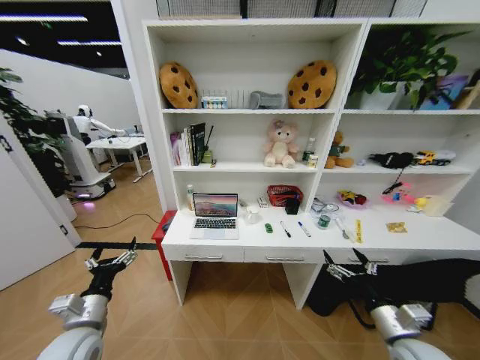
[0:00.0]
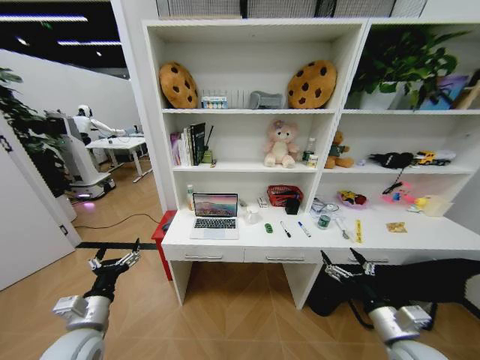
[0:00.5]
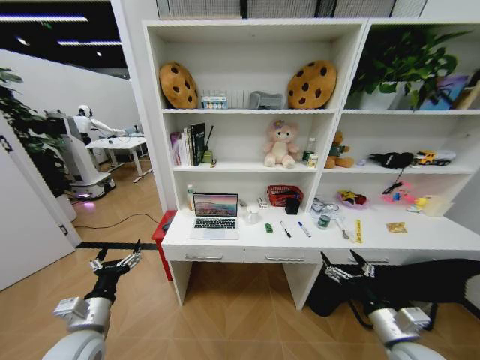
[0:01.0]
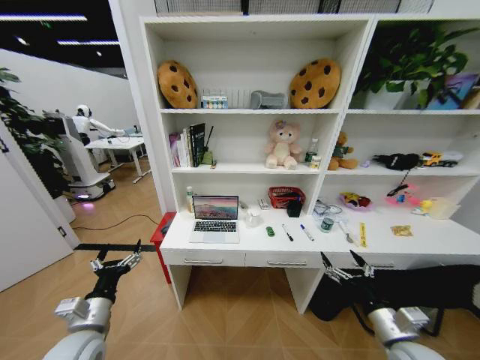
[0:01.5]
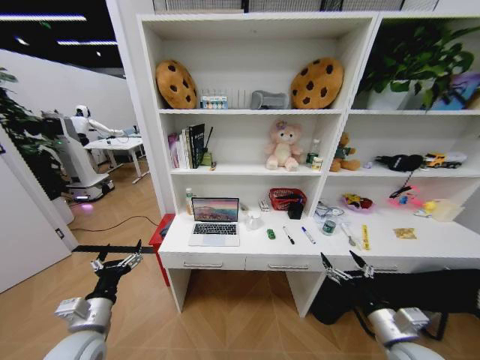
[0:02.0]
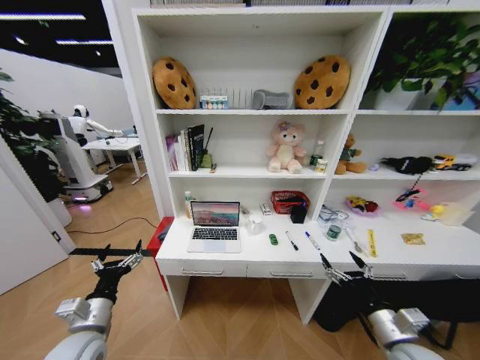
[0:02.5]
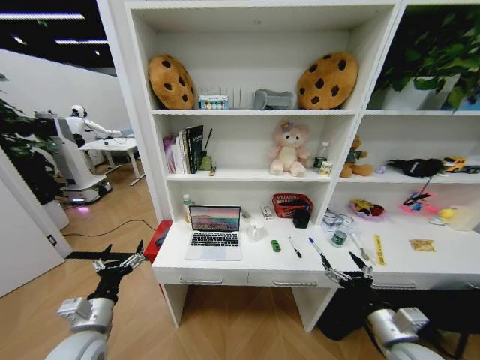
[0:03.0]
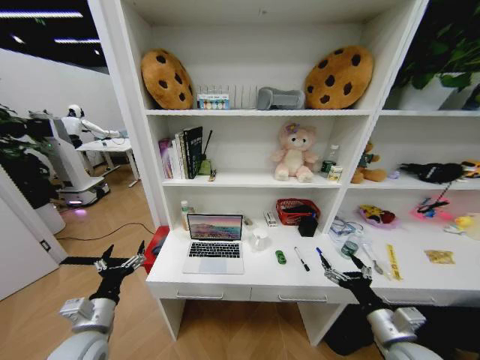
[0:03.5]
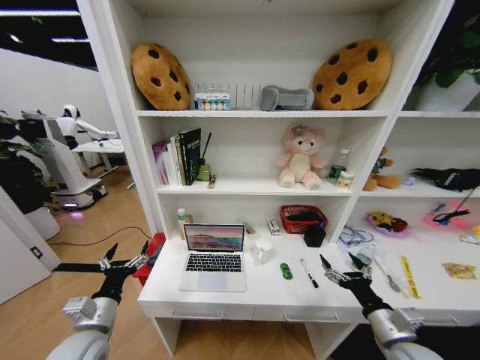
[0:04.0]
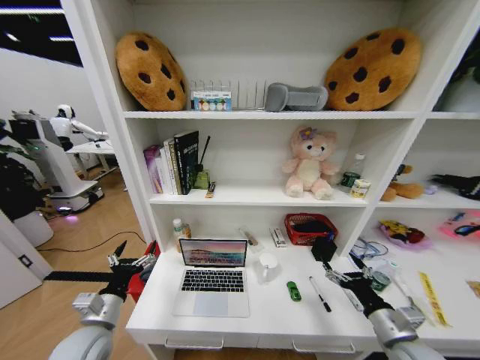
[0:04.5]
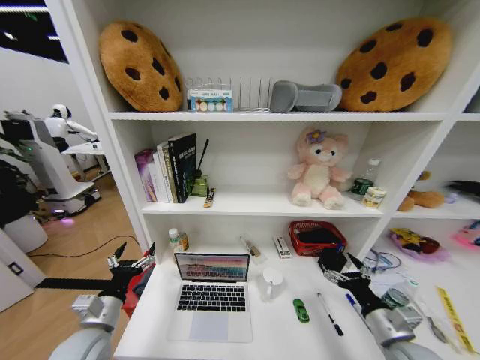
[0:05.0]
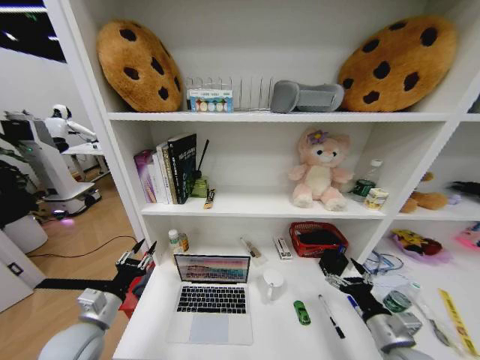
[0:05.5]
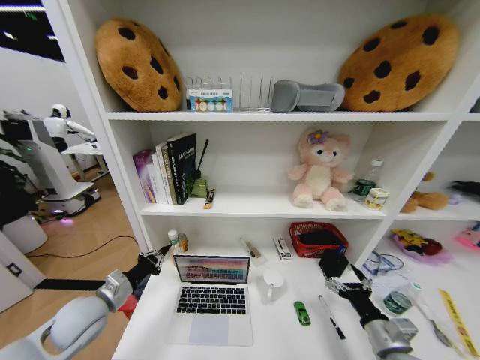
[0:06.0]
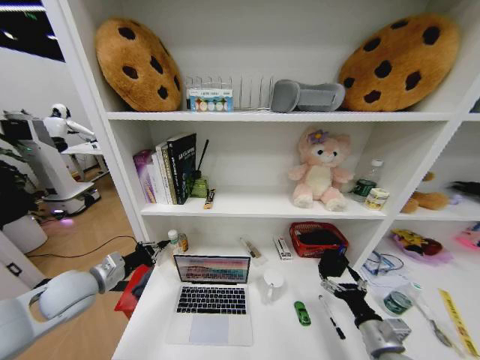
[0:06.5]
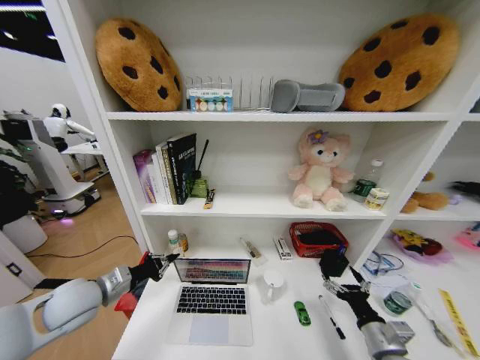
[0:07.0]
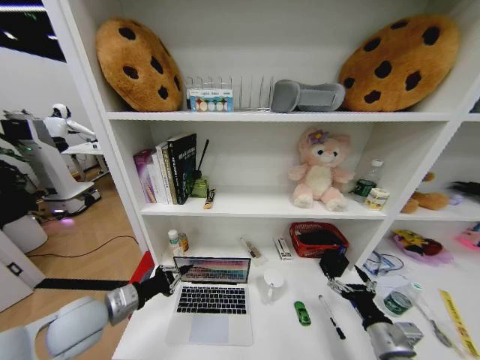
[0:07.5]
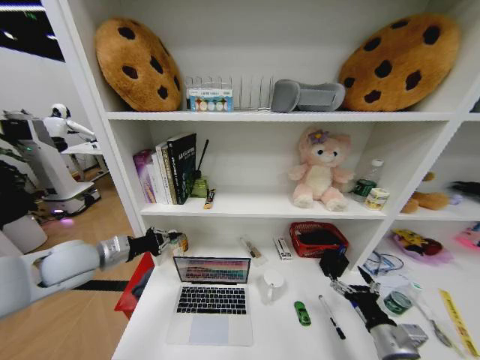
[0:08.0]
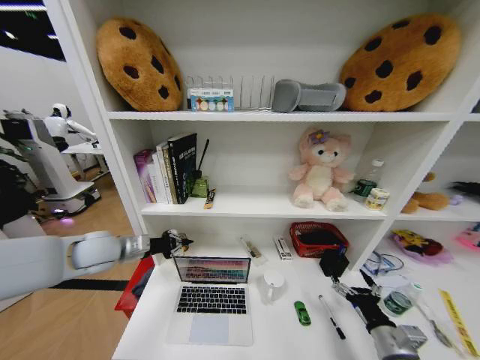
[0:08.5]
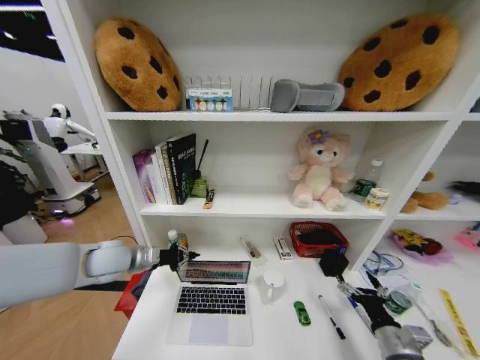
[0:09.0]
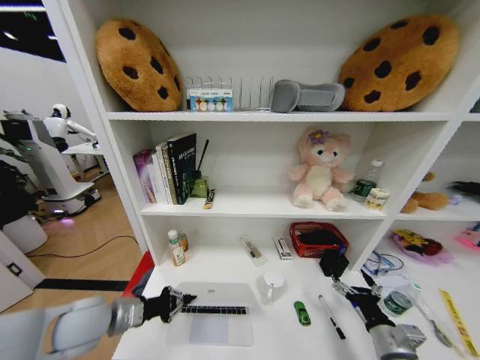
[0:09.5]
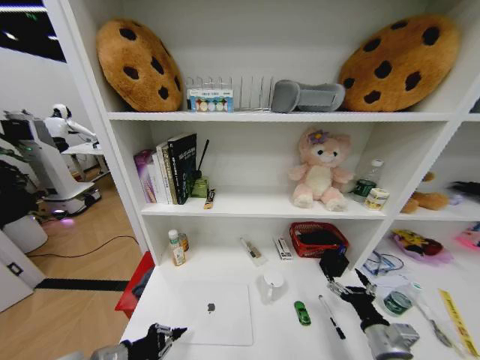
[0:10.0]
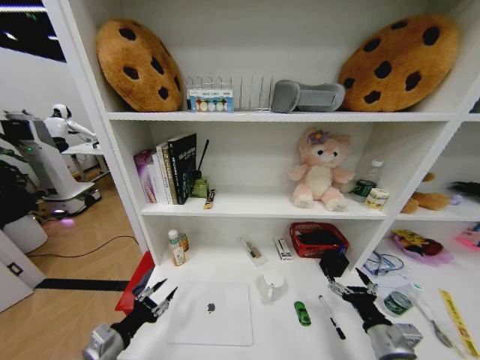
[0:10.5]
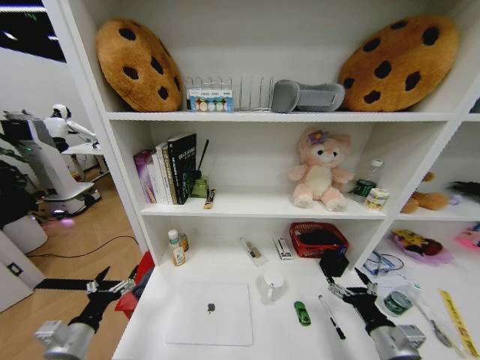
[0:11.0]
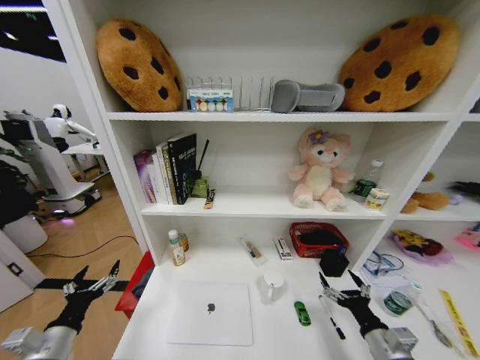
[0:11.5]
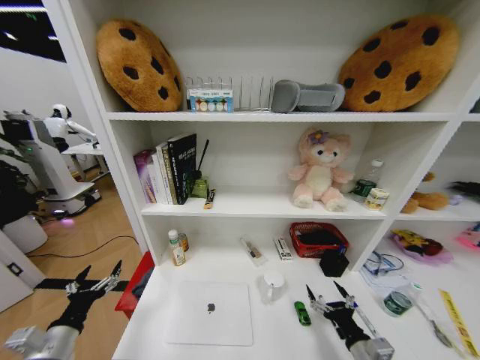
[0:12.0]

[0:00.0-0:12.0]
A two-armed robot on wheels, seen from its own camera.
Task of the whole recording: Organize the objects on the table.
0:04.0 to 0:06.0: The left gripper shifts roughly 5 cm forward, and closes its fingers.
0:06.0 to 0:08.0: The left gripper travels upward and forward by about 15 cm.
0:08.0 to 0:10.0: The left gripper is displaced backward and downward by about 25 cm.
0:10.0 to 0:12.0: The right gripper shifts by about 5 cm, while the left gripper is displaced to the left by approximately 5 cm, and opens its fingers.

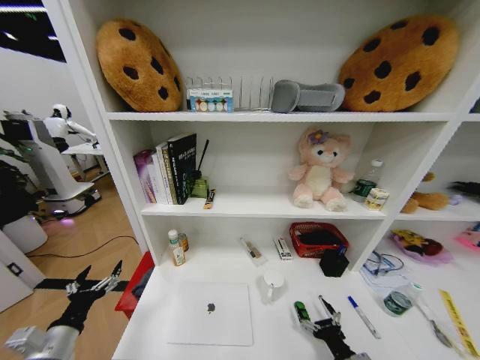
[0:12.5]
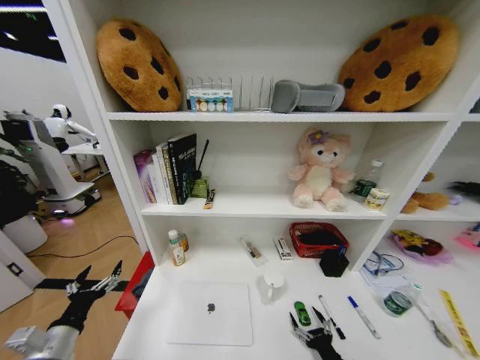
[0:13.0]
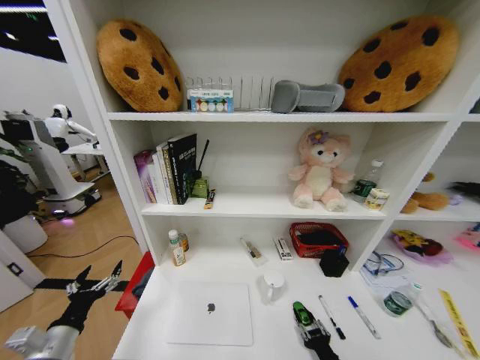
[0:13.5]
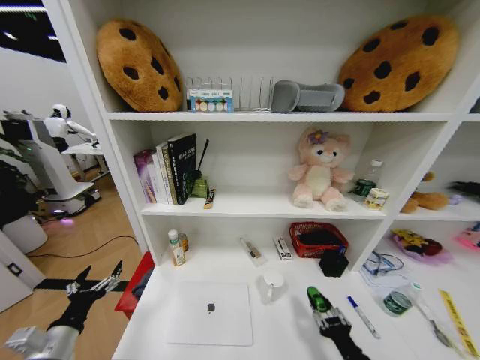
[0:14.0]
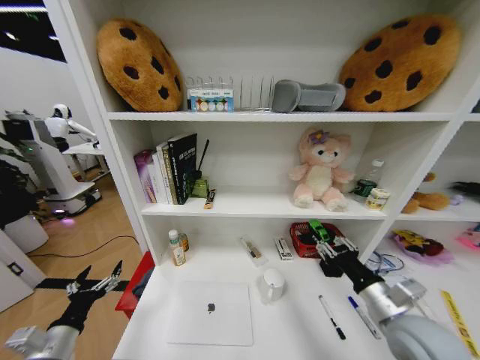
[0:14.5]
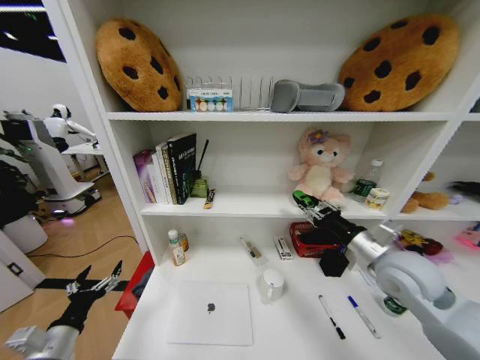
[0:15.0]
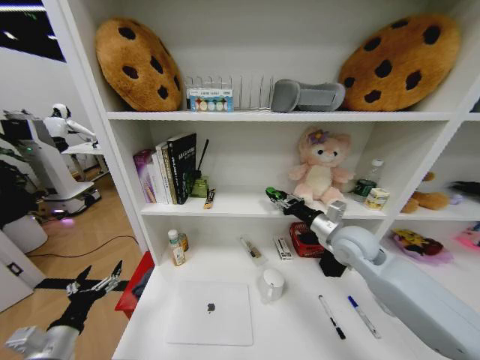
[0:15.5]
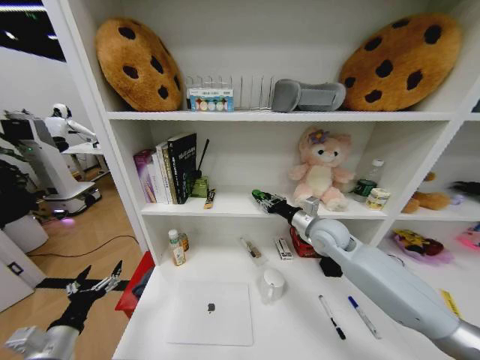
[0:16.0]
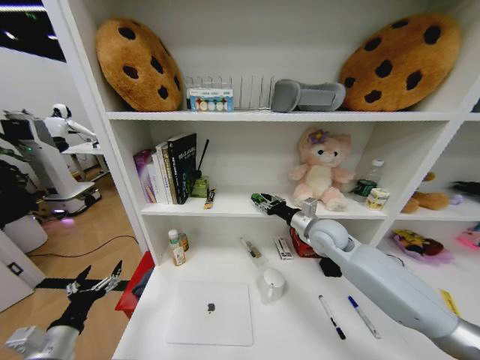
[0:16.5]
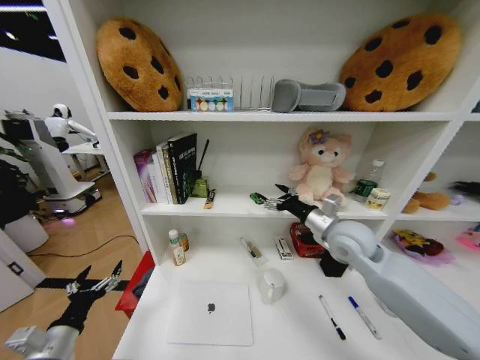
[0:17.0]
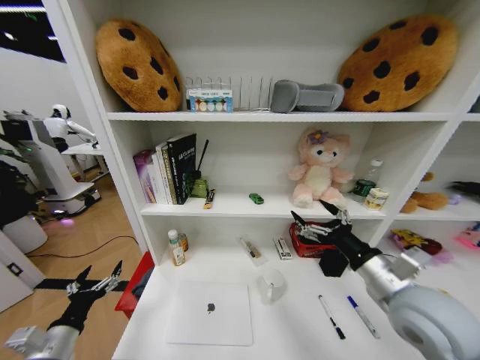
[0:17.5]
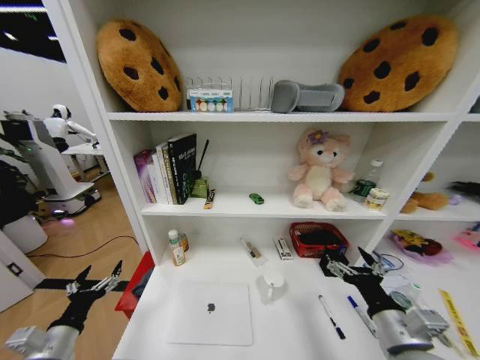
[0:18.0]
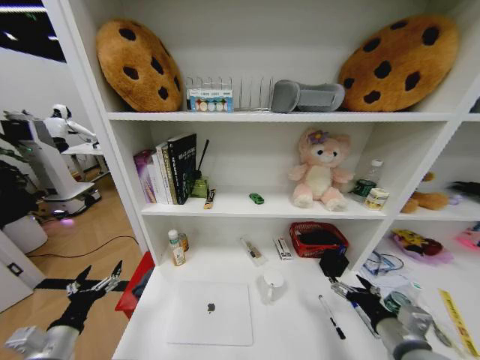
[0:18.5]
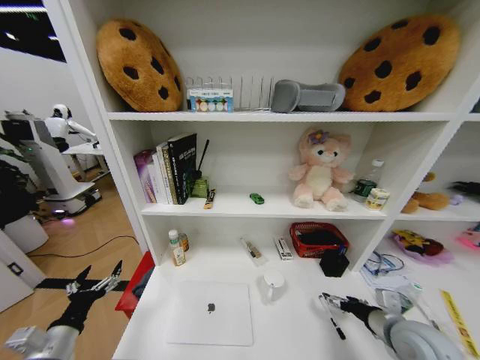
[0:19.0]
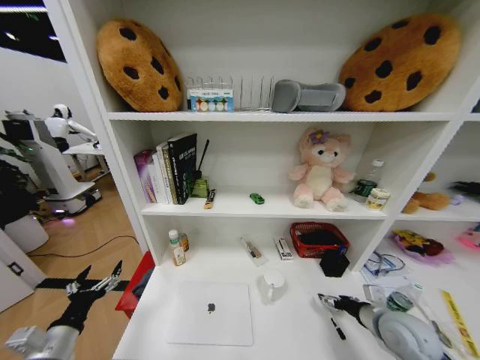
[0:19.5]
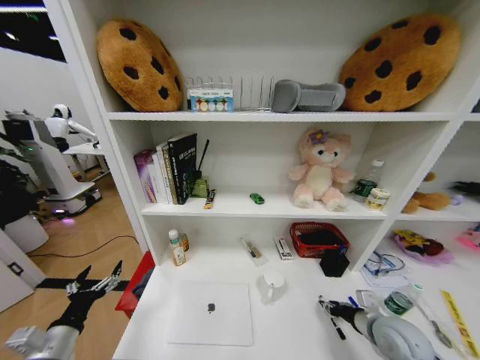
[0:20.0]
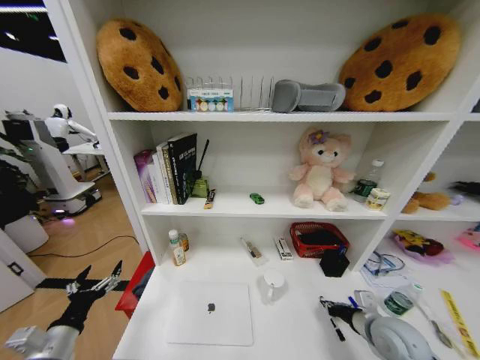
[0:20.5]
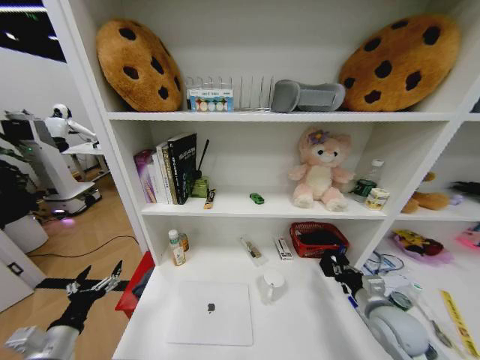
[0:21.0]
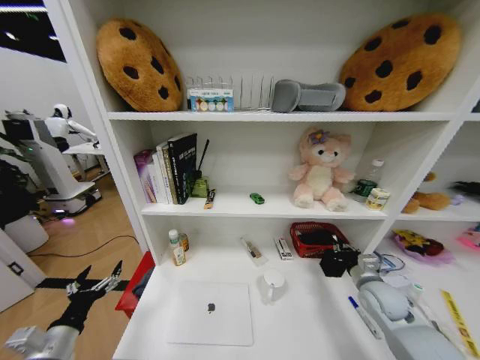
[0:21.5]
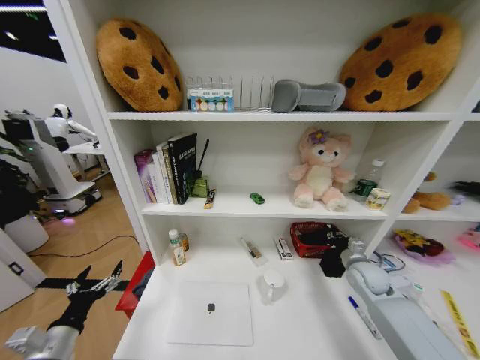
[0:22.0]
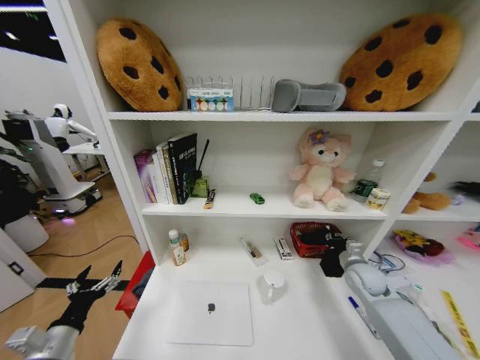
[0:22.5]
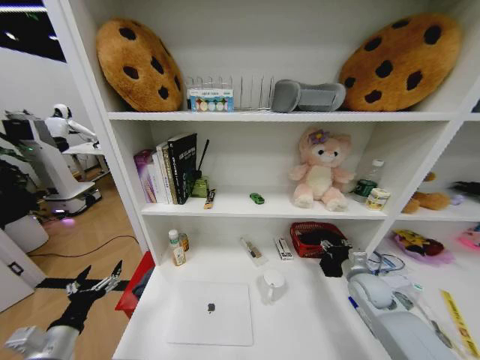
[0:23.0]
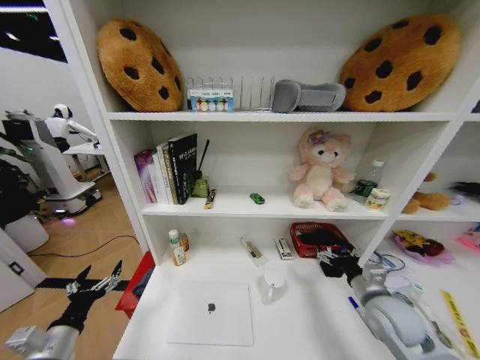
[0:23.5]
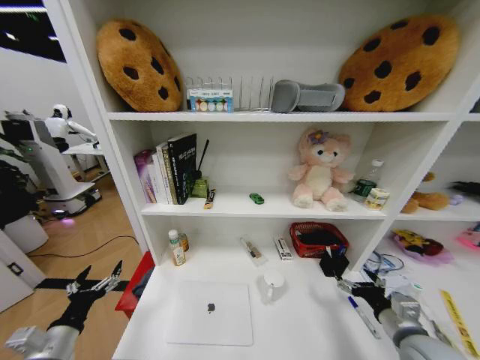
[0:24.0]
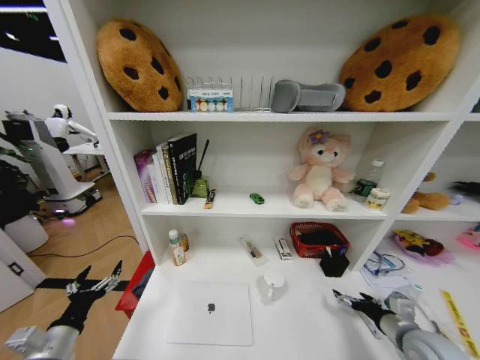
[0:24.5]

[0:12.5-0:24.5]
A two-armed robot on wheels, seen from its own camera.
Task of the whole recording: Organize the objects on the table.
0:12.5 to 0:14.5: The right gripper heads upward and forward, covering some 20 cm, and closes up.
0:14.5 to 0:16.5: The right gripper travels forward by roughly 25 cm.
0:16.5 to 0:18.5: The right gripper moves backward, about 25 cm, and opens its fingers.
0:18.5 to 0:20.5: The right gripper travels forward by roughly 5 cm, and closes.
0:20.5 to 0:22.5: The right gripper moves forward, approximately 15 cm.
0:22.5 to 0:24.5: The right gripper moves backward, about 20 cm, and opens its fingers.

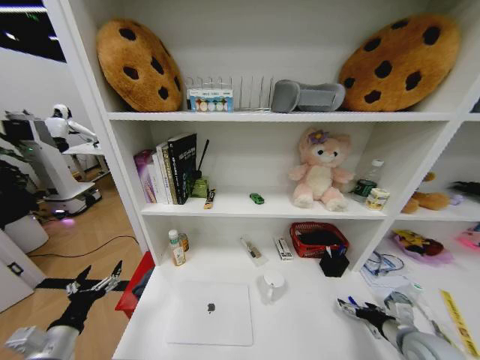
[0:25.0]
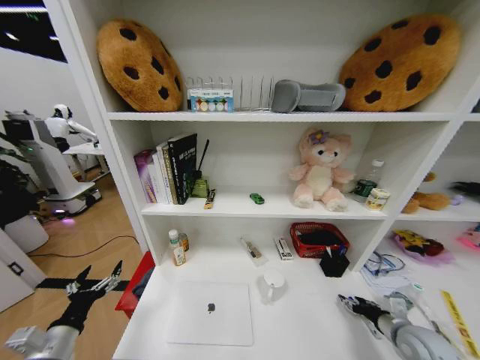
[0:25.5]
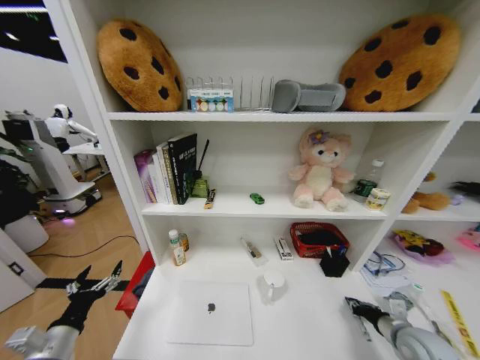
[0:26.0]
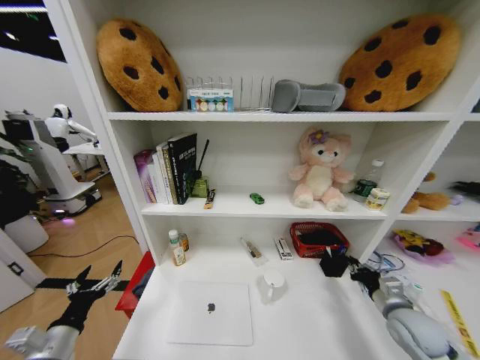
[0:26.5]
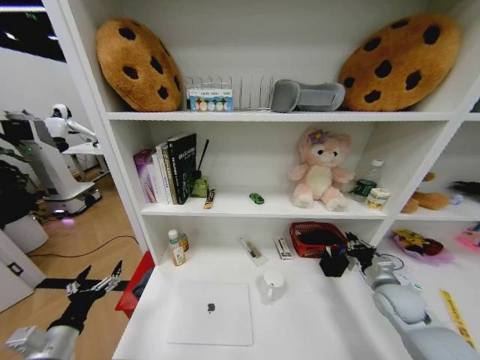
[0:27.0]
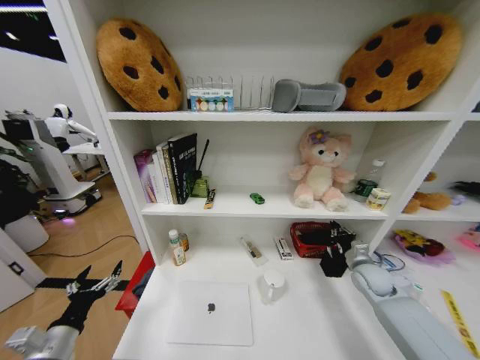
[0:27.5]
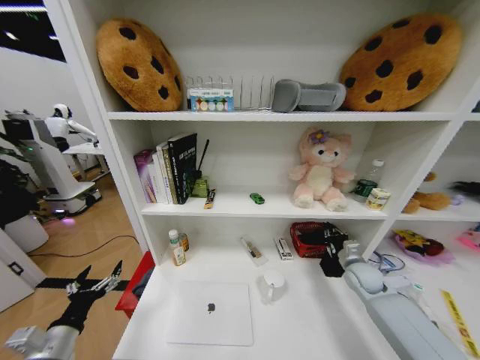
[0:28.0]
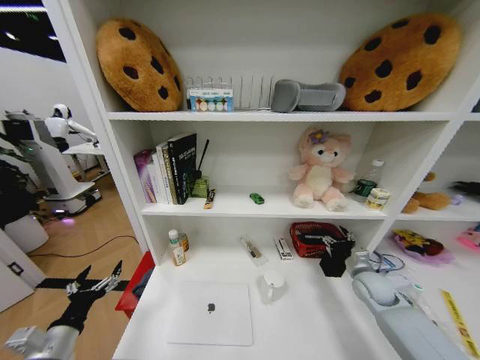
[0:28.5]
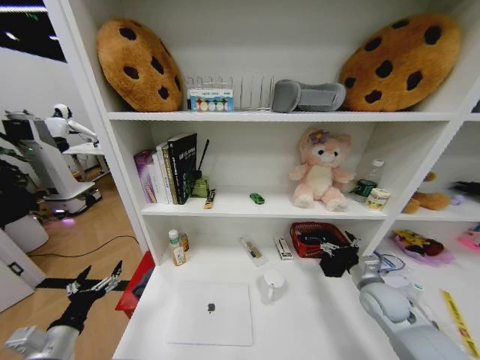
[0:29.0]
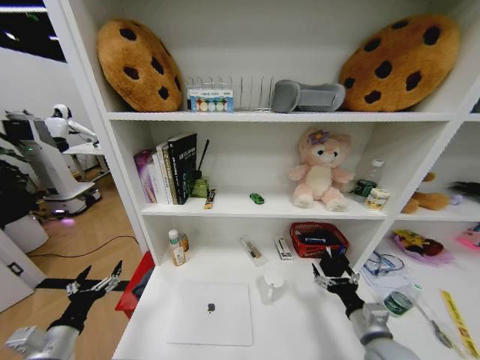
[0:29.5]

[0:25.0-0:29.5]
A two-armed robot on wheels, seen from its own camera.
Task of the whole recording: Organize the objects on the table.
0:25.0 to 0:27.0: The right gripper goes about 10 cm forward, and closes.
0:27.0 to 0:29.5: The right gripper heads backward and to the left, covering approximately 15 cm, and opens its fingers.
